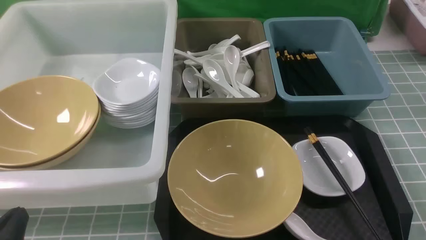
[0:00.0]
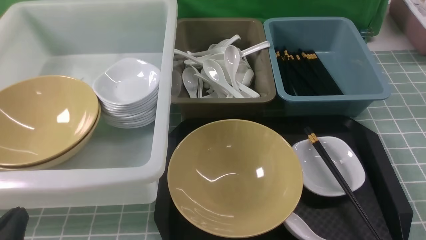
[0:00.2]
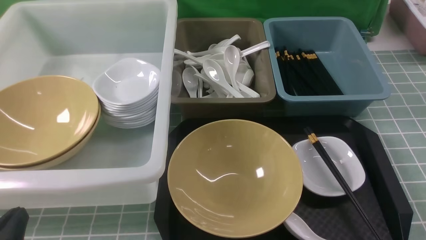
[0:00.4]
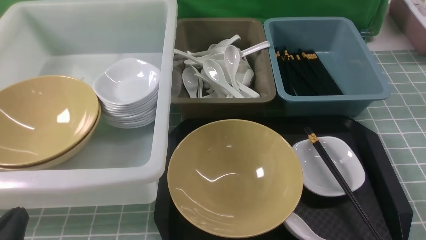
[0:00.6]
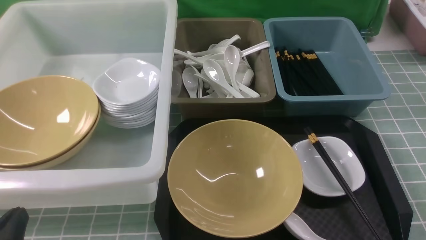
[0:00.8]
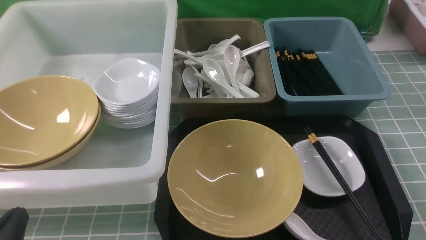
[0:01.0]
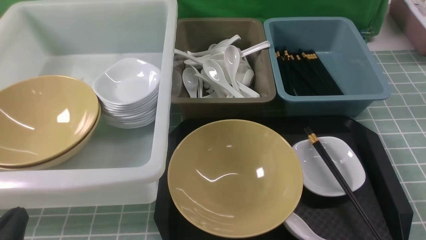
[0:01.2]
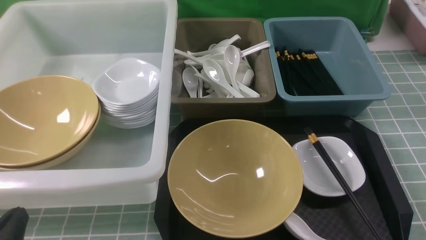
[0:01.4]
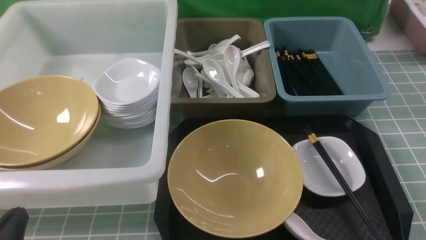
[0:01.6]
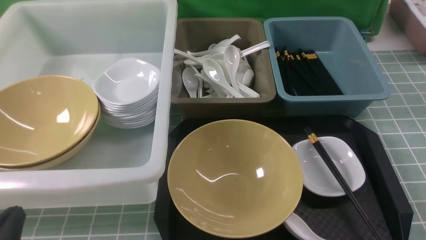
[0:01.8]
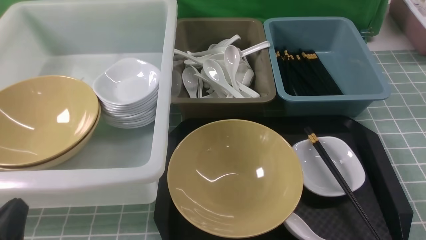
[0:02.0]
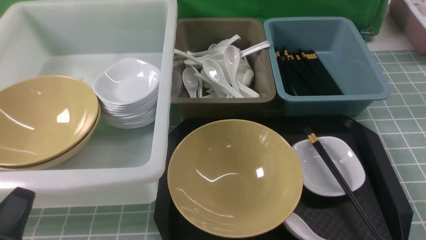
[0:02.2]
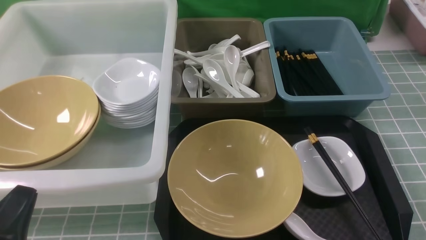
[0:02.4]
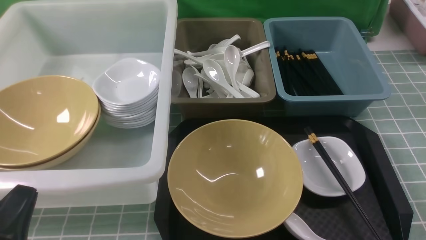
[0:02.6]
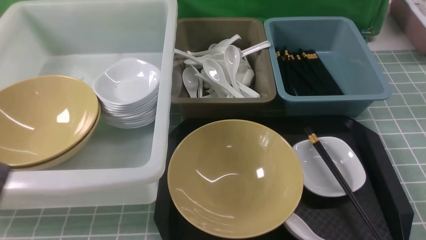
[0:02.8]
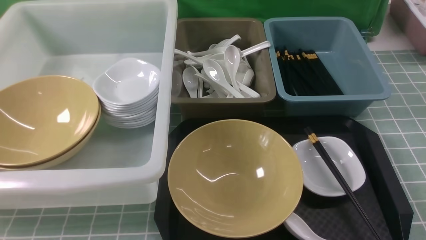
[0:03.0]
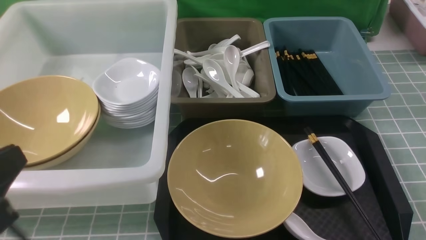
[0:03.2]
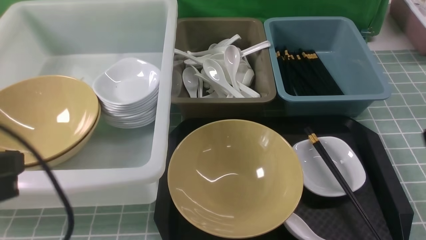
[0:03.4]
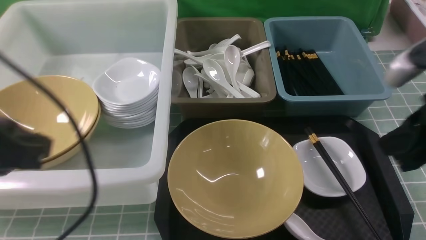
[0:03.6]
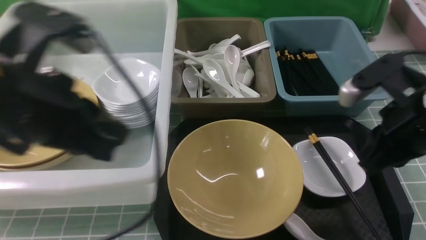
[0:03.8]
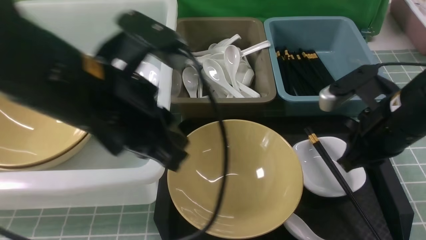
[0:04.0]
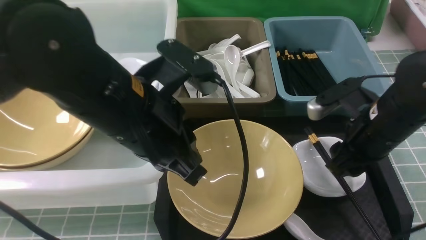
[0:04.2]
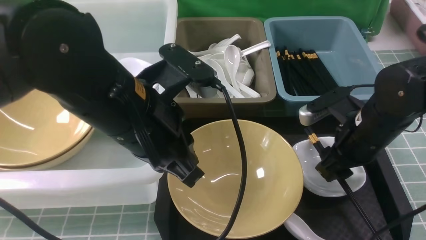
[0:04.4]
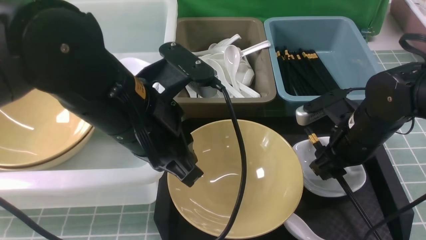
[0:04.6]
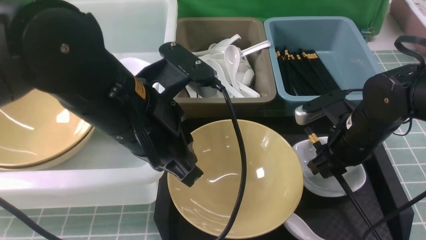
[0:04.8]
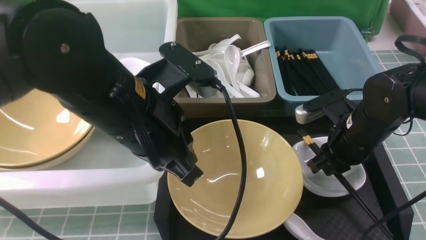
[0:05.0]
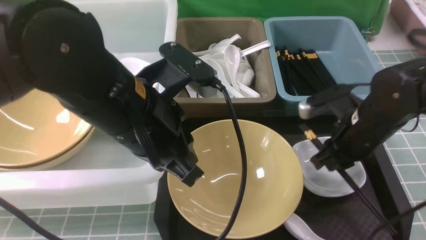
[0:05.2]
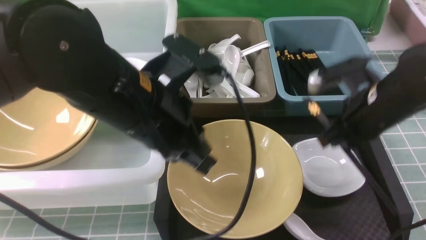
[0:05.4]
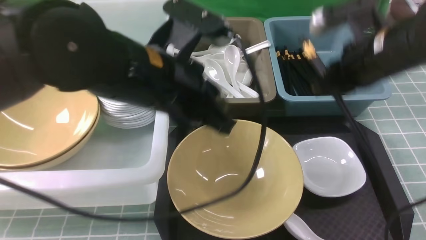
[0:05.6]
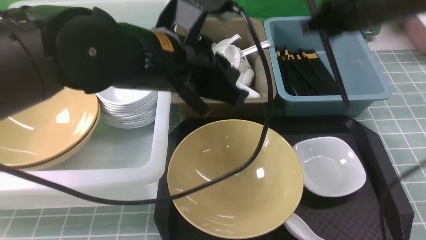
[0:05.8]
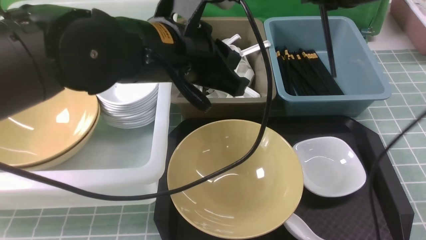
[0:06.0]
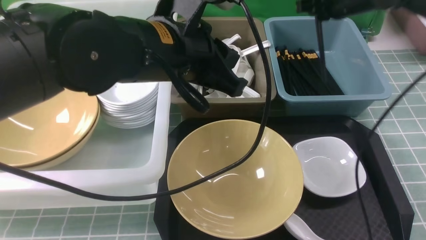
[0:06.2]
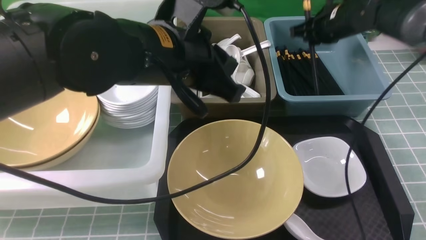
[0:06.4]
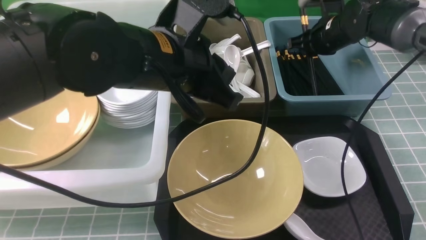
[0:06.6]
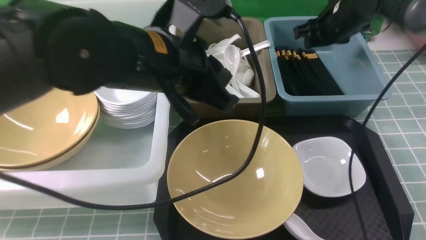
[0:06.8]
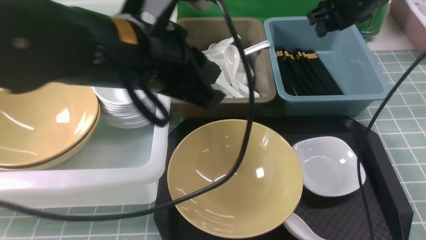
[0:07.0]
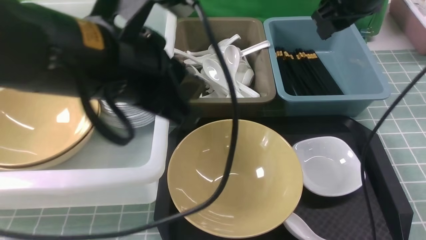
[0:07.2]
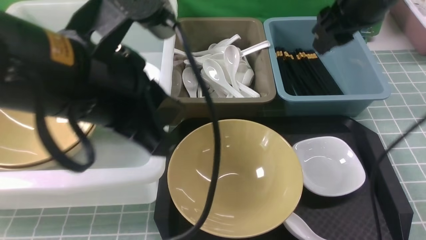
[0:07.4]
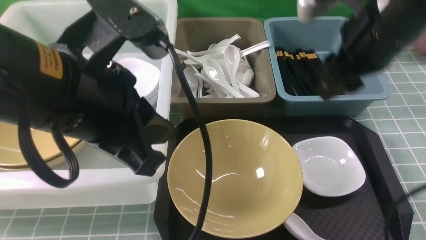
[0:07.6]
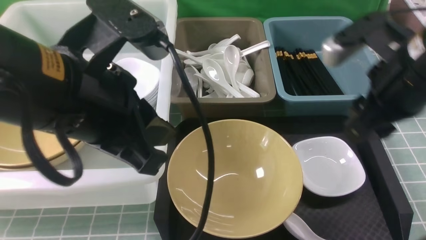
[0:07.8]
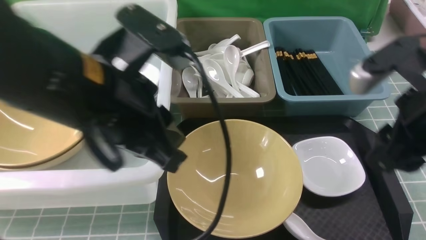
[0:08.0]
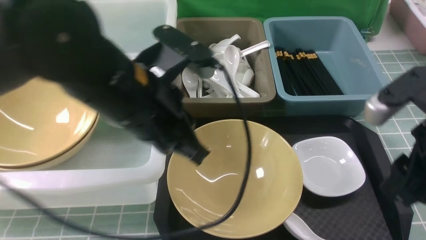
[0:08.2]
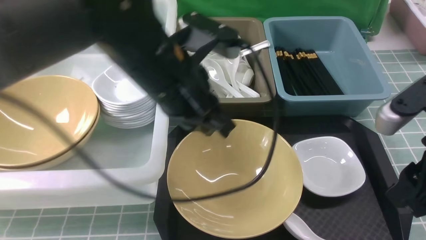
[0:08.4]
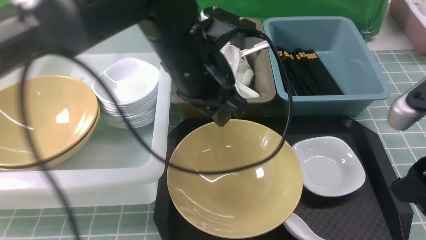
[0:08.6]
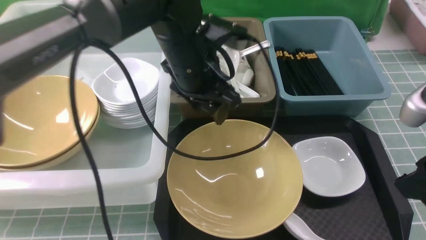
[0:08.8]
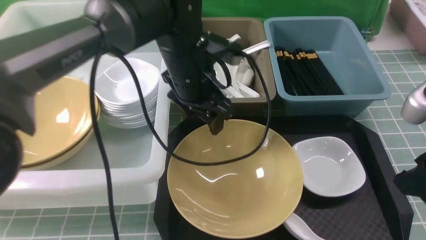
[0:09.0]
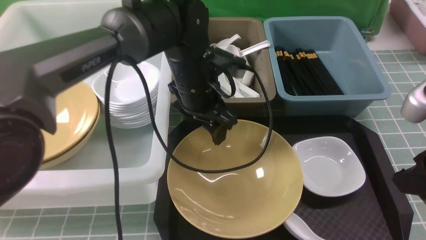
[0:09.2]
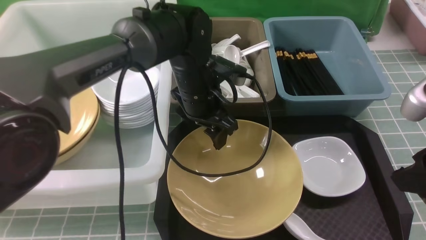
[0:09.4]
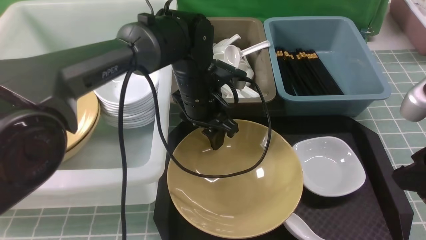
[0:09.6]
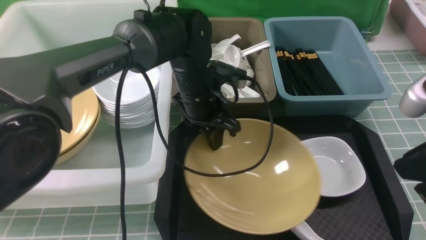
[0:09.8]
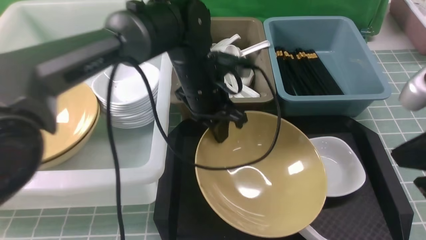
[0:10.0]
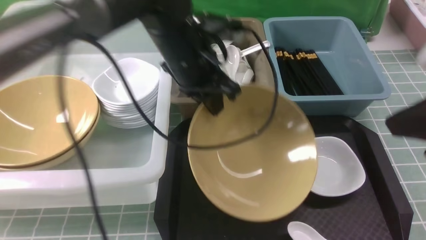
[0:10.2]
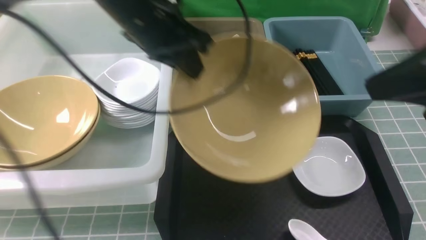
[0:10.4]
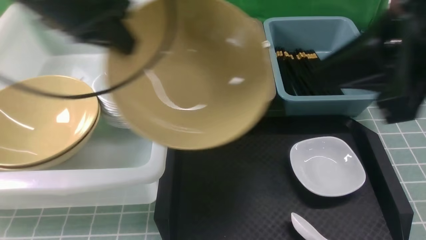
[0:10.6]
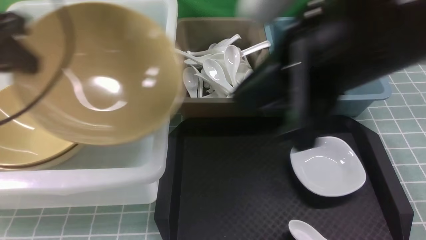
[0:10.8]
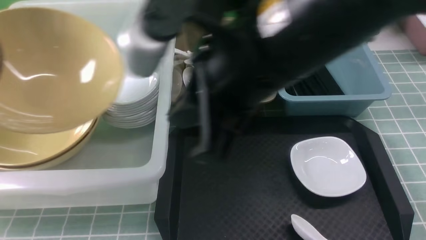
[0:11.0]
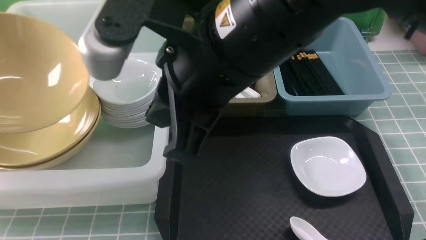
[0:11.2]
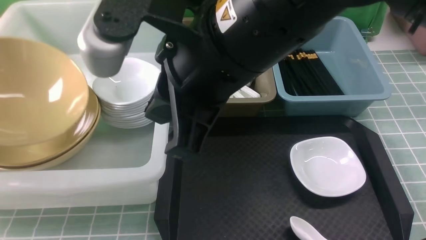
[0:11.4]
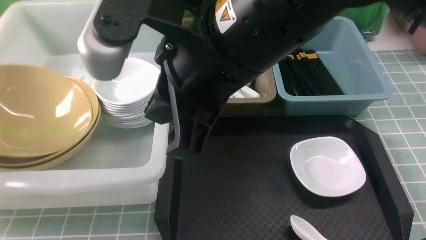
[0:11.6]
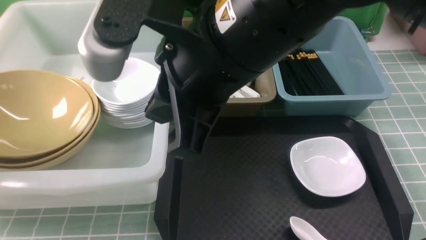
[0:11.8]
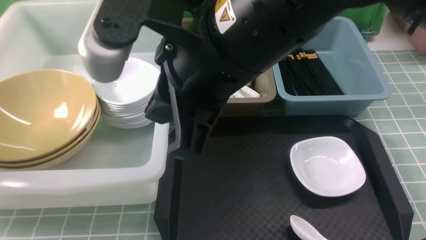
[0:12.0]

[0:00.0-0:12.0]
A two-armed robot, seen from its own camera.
Task of the whole recording: on blue table put chopsticks spoon bowls plates into blue grey white boxes.
Step, 0:00.0 to 0:05.2: use the right arm to grab the chopsticks.
Step, 0:05.4 to 0:07.0: use the right arm to put the chopsticks into the small storage box on the right.
Step, 0:07.2 to 0:10.0: use the left arm to grab the yellow noodle bowl on the left.
0:00.0 to 0:01.6: Both grippers stay about where they are.
0:01.6 to 0:03.0: The left gripper moves upward, about 10 cm.
0:03.0 to 0:04.4: The left gripper moves forward and to the right, some 20 cm. Meanwhile the right gripper goes some 25 cm forward, and opens up.
0:04.4 to 0:06.0: The left gripper heads forward, covering roughly 5 cm, while the right gripper heads forward and upward, covering about 20 cm, and closes its fingers.
0:06.0 to 0:07.6: The left gripper moves backward and to the left, about 10 cm. Meanwhile the right gripper goes approximately 15 cm backward, and opens up.
0:07.6 to 0:09.0: The right gripper goes approximately 15 cm backward. Meanwhile the left gripper shifts roughly 25 cm forward, downward and to the right, and opens its fingers.
0:09.0 to 0:10.4: The right gripper moves upward, about 10 cm, and closes its fingers. Meanwhile the left gripper is displaced upward and to the left by approximately 15 cm, and closes up.
0:10.4 to 0:12.0: The left gripper moves to the left, about 30 cm, and opens; the right gripper shifts about 20 cm to the left.

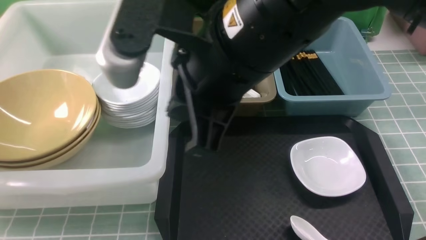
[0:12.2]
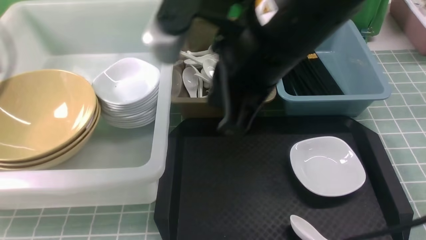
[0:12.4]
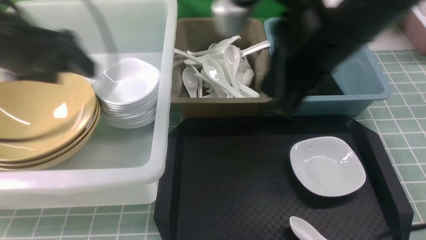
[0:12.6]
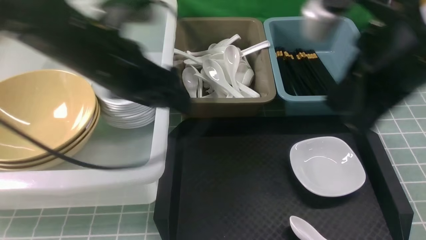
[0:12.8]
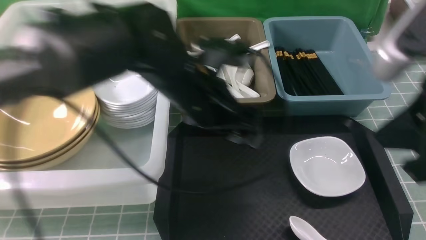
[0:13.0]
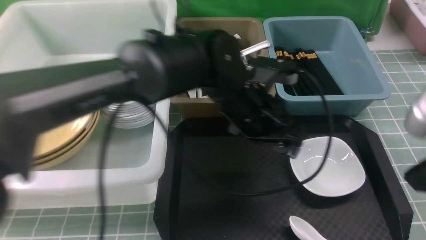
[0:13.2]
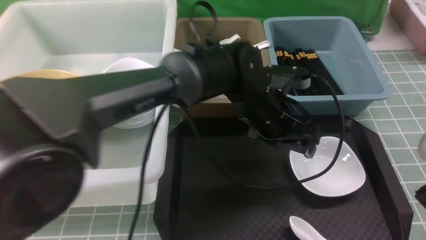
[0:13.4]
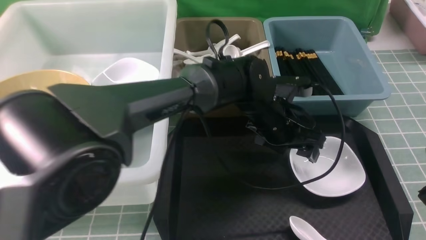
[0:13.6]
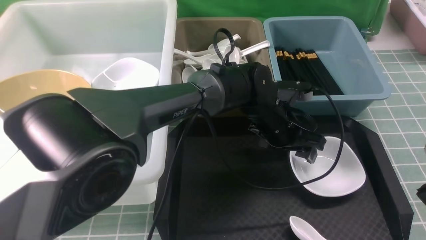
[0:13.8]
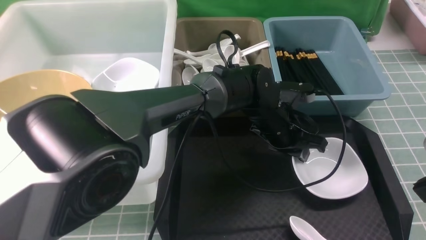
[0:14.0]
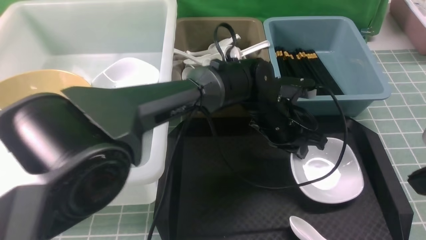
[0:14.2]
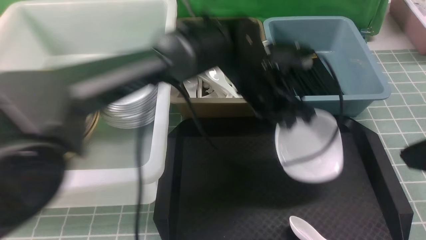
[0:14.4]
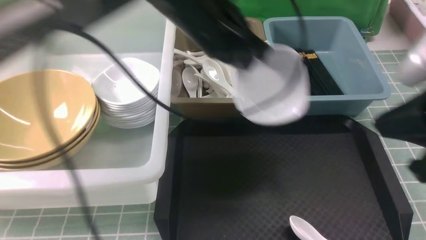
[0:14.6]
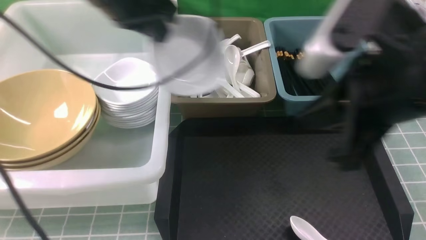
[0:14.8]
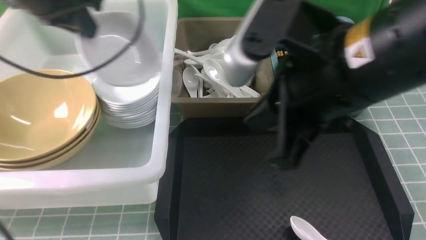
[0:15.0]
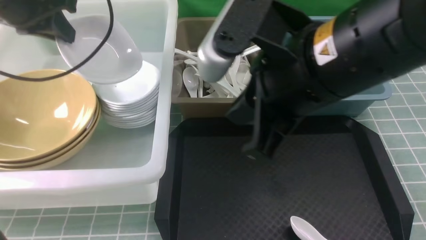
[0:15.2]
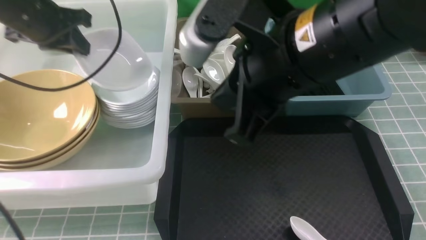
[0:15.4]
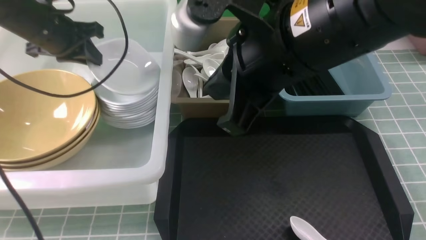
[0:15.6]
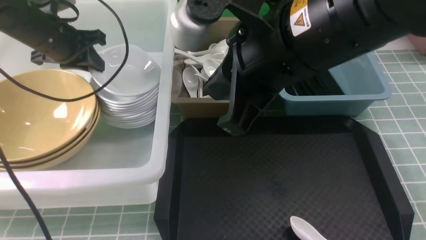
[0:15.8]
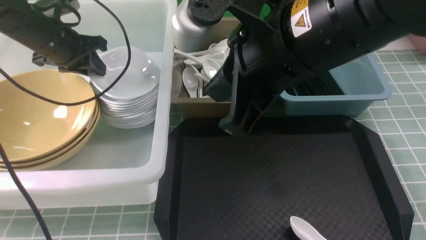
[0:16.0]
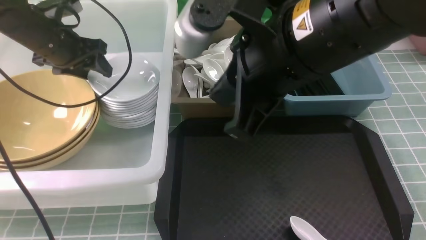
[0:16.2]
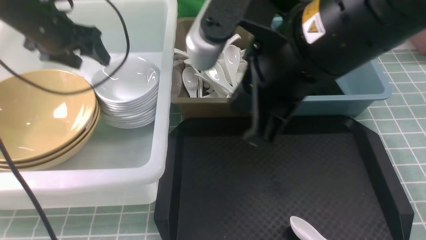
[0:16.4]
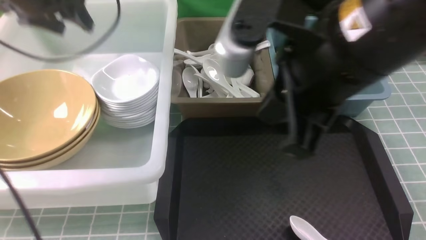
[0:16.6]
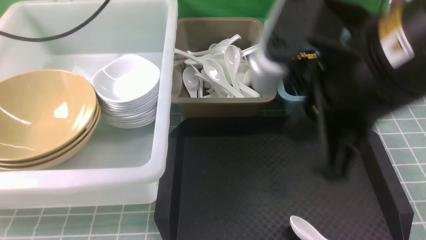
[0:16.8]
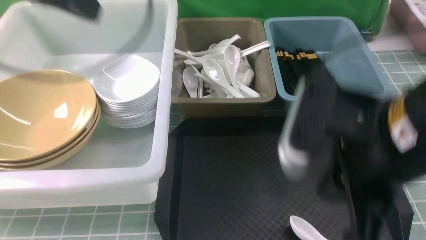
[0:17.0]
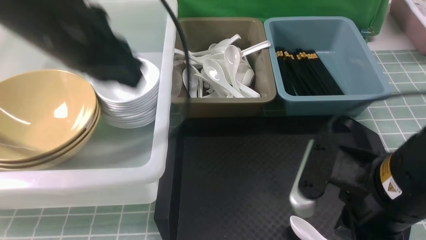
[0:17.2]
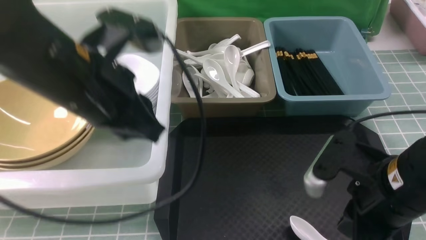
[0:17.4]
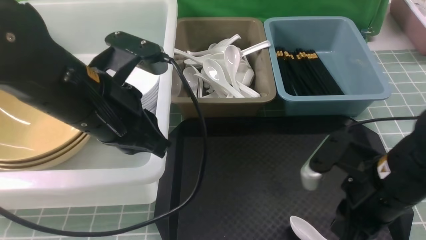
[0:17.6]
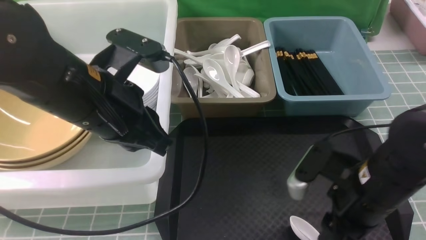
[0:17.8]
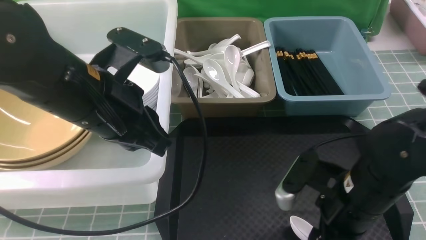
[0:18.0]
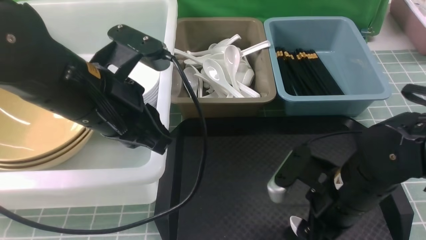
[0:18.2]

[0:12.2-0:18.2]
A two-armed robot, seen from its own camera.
Task of the whole recording: on blue table put chopsticks spoon bowls plates into blue grey white boxes.
Step, 0:12.4 to 0:14.4: use the left arm to grab the plate.
Step, 0:14.6 to 0:16.6: use the left arm to put the plate into the large storage box on the left.
0:12.2 to 0:13.8: The right gripper shifts some 25 cm to the right and backward. The left gripper travels to the right by some 50 cm.
0:13.8 to 0:15.2: The left gripper heads to the left and upward, covering about 40 cm, and closes up, while the right gripper heads to the left and forward, covering about 20 cm.
0:15.2 to 0:16.6: The left gripper travels downward and back again, about 10 cm each way, and opens its fingers.
0:16.6 to 0:18.2: The left gripper is displaced backward and to the right by approximately 20 cm, and closes its fingers, while the right gripper shifts some 20 cm downward, and opens its fingers.
